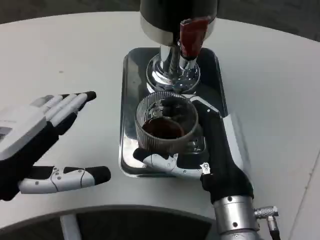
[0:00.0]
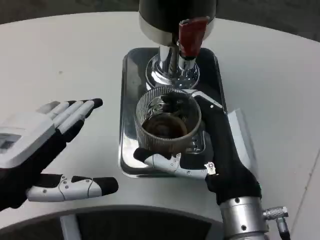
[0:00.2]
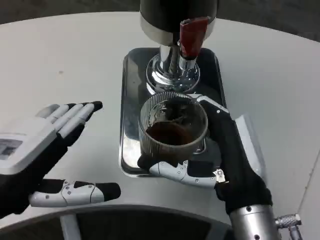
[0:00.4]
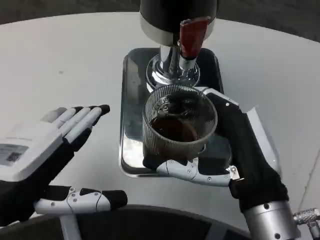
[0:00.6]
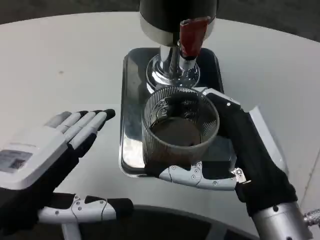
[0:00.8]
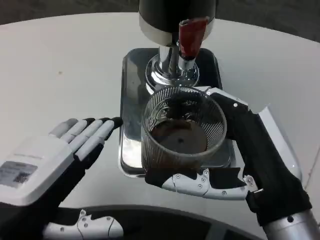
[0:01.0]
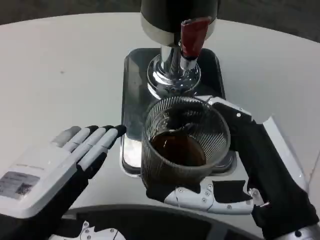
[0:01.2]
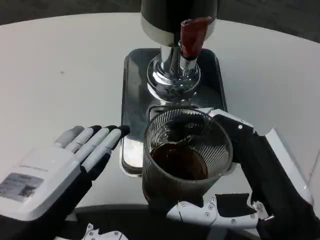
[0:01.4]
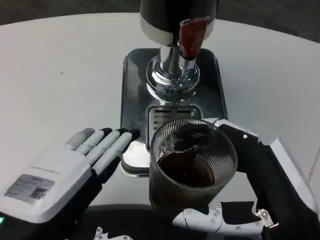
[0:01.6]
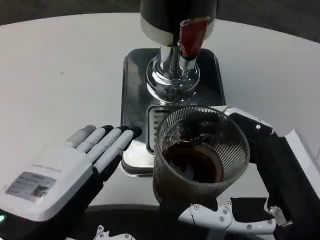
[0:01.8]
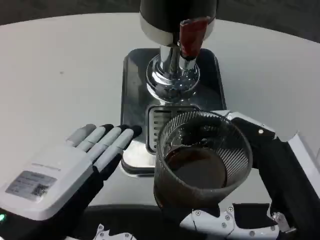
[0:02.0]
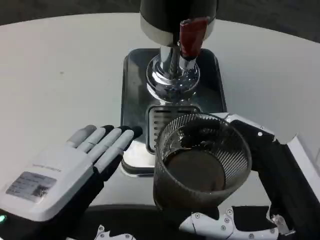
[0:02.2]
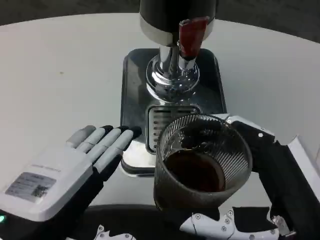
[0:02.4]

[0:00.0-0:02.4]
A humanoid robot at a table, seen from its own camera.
Task of the whole recording: Grasp the cup under the faucet to collect the drink, then remove the cup.
0:00.0 to 0:01.2: The left hand goes approximately 5 cm backward. Meanwhile the right hand shifts about 10 cm backward and to the right.

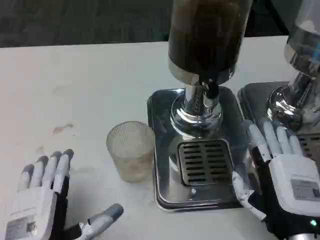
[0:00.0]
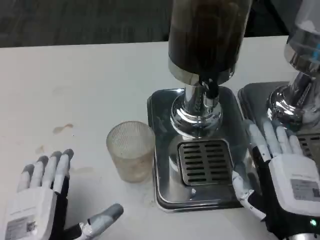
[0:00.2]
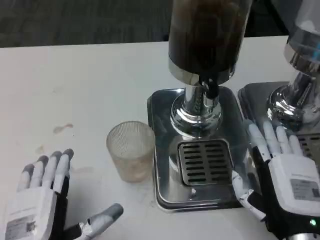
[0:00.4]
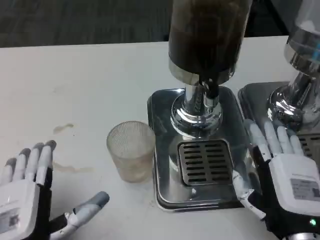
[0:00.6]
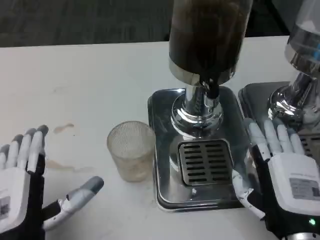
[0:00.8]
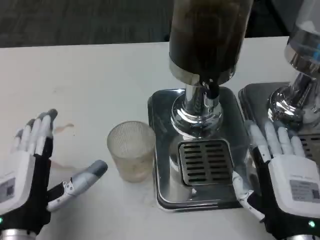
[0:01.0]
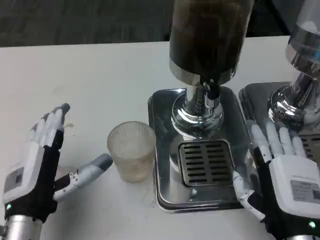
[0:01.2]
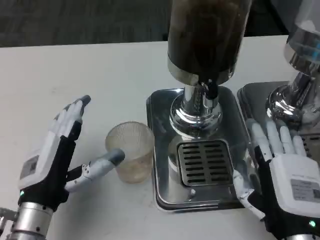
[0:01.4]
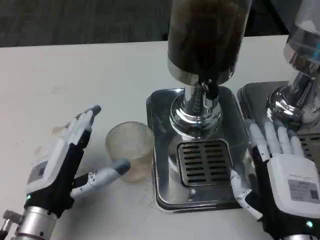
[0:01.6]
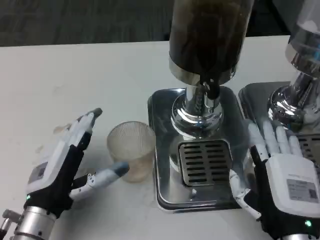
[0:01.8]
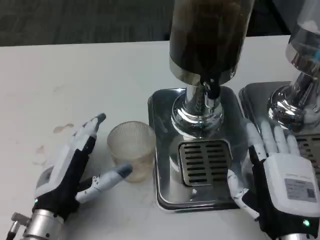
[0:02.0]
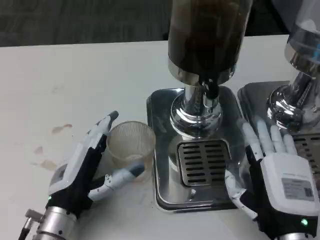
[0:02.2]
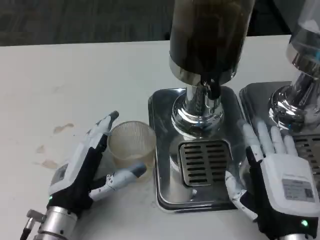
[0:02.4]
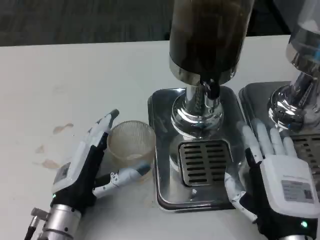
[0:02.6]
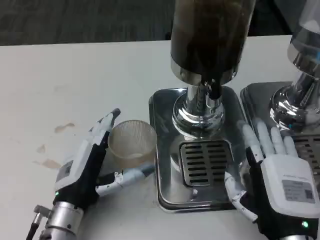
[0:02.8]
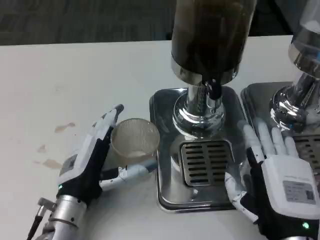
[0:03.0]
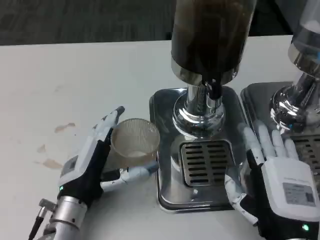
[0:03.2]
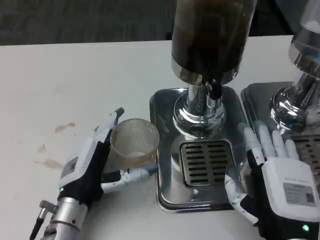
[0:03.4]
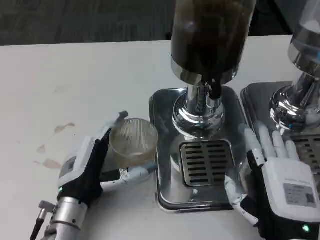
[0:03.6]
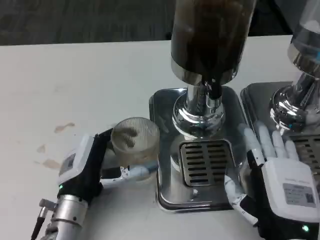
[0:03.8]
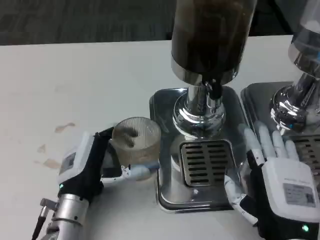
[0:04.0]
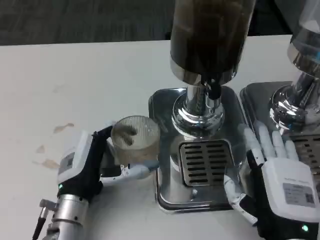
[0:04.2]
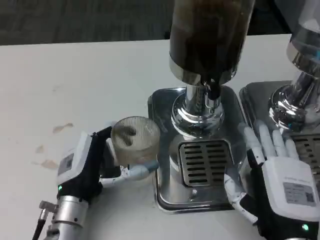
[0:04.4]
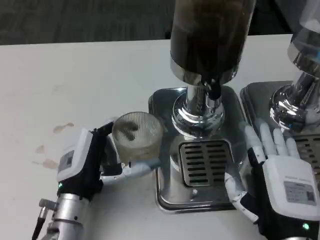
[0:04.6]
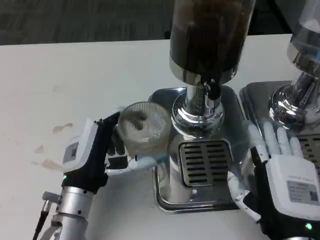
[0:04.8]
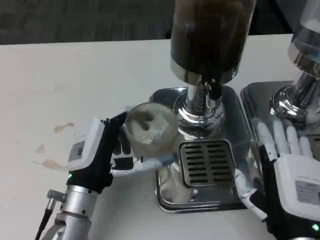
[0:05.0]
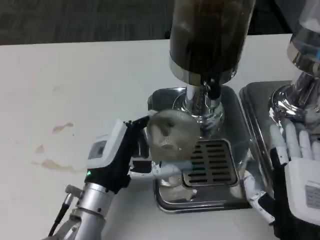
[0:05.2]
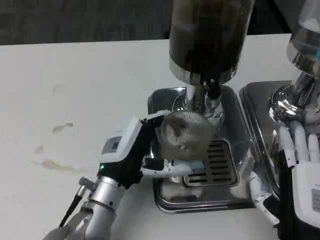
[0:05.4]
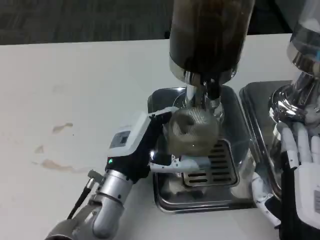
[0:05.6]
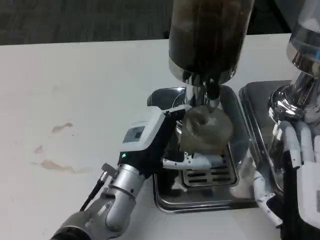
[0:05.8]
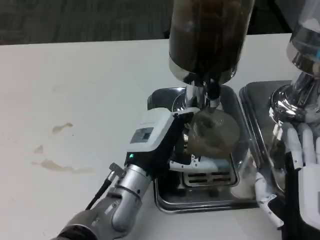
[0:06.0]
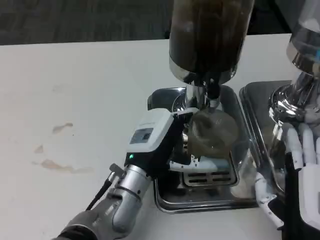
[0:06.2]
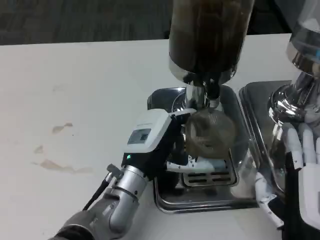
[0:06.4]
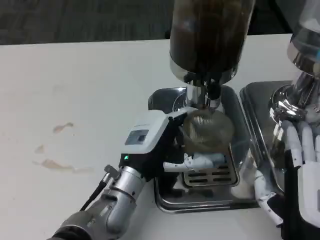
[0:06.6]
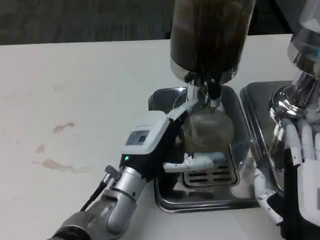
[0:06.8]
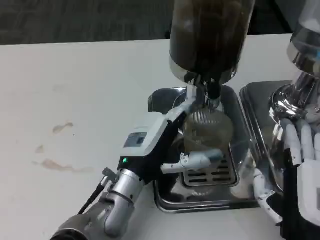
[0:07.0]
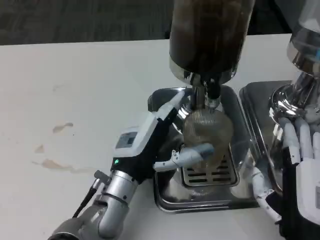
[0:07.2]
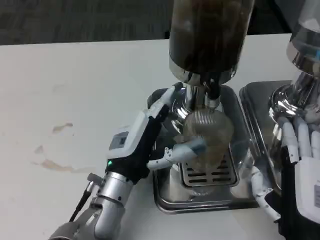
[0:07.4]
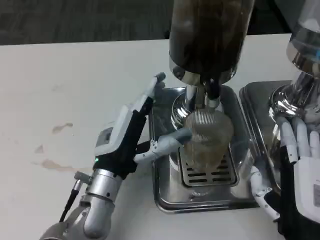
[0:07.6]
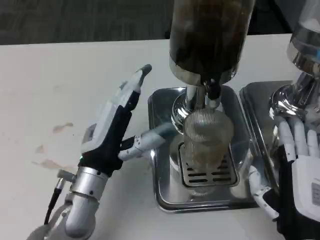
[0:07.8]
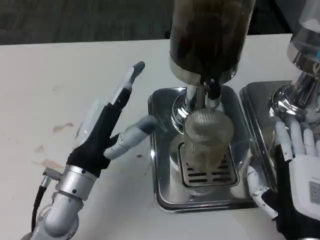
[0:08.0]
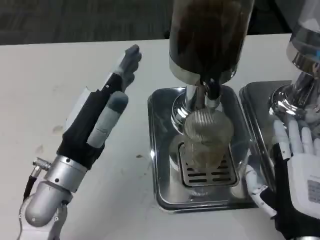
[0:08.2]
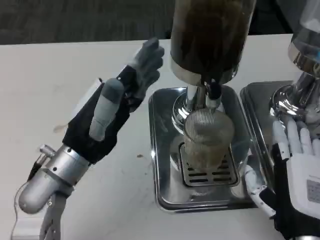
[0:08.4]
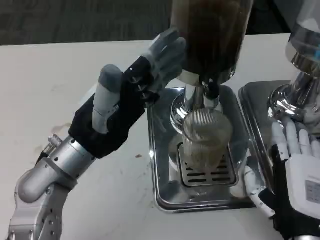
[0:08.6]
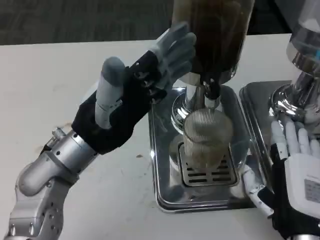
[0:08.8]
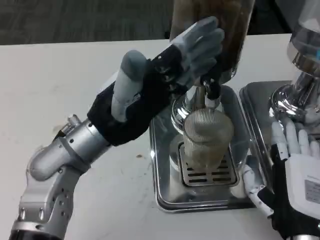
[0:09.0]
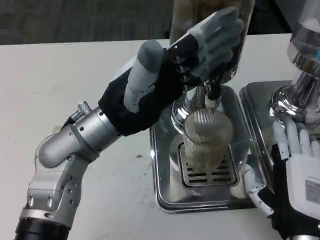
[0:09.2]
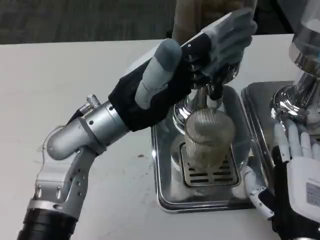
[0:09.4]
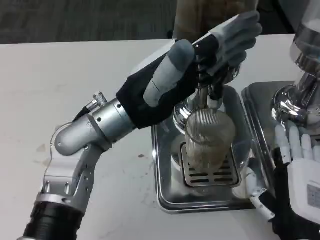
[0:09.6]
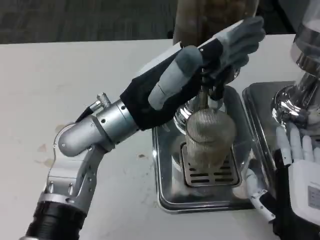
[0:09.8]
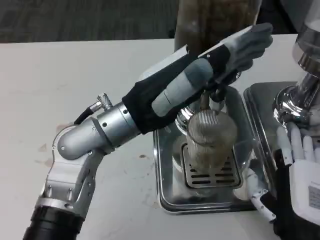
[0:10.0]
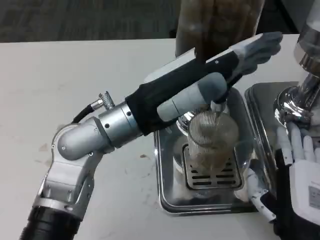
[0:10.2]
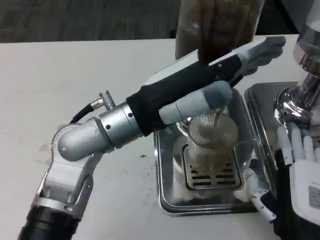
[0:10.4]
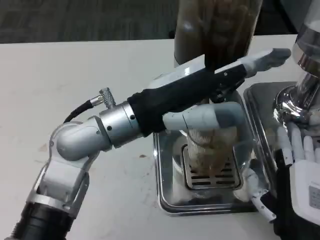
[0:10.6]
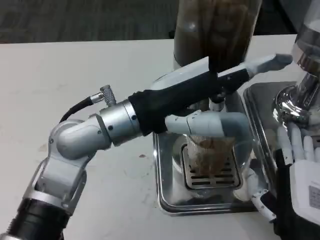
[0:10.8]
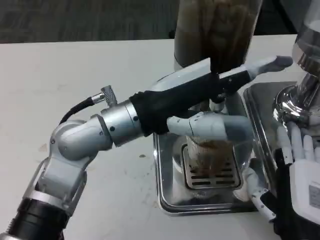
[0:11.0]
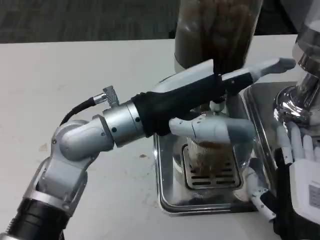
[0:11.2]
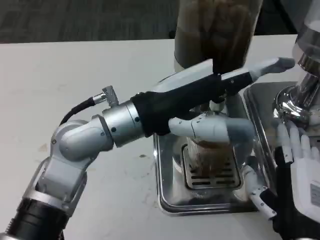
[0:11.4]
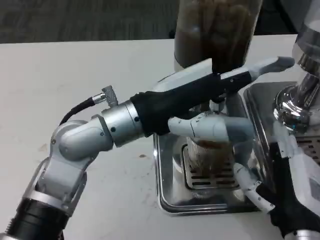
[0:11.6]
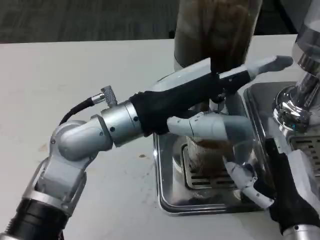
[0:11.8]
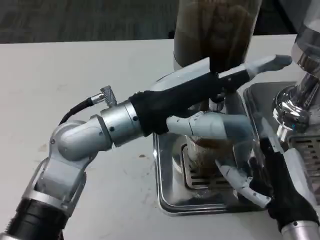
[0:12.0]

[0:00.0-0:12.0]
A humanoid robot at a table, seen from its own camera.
Task of the whole recording: Grasp the cup under the faucet to collect the drink, then remove the cup.
0:00.0 to 0:01.6: The left hand travels forward by approximately 10 cm.
0:01.6 to 0:03.0: The left hand shifts by some 5 cm.
0:03.0 to 0:04.4: There are only small adjustments of the hands.
0:04.4 to 0:06.0: The left hand travels to the right by about 10 cm.
0:07.6 to 0:09.0: The left hand moves upward, approximately 10 cm.

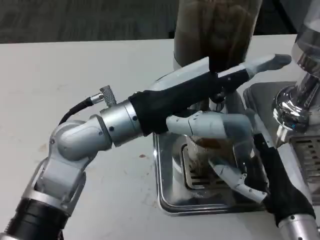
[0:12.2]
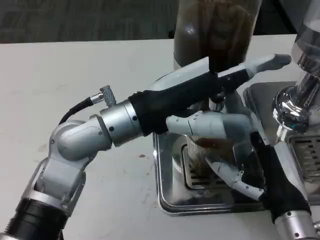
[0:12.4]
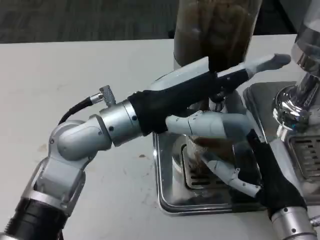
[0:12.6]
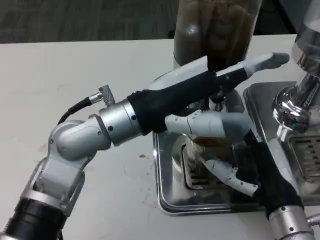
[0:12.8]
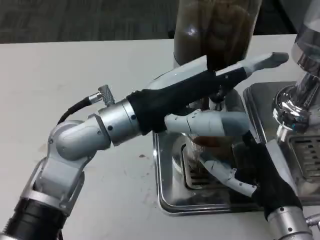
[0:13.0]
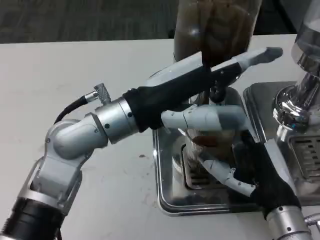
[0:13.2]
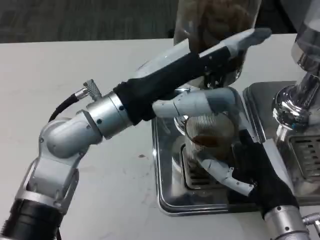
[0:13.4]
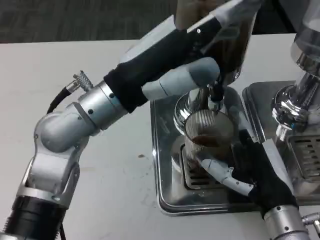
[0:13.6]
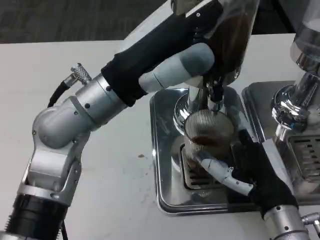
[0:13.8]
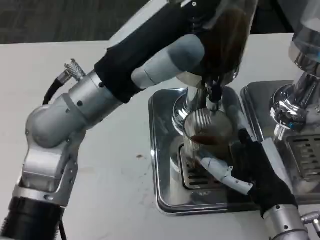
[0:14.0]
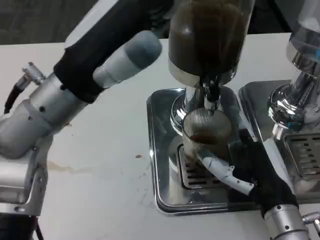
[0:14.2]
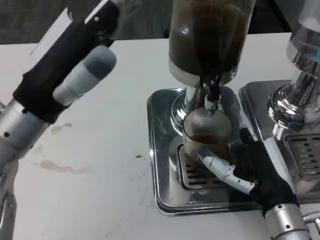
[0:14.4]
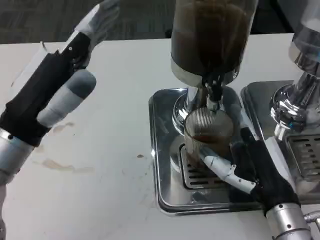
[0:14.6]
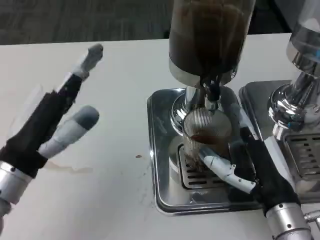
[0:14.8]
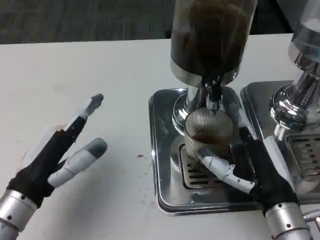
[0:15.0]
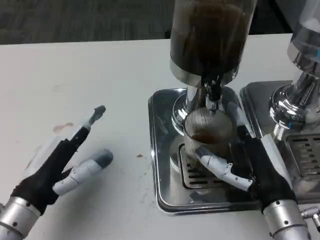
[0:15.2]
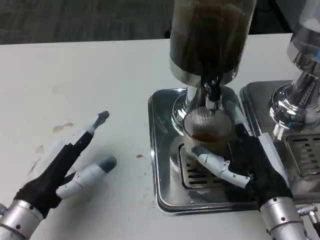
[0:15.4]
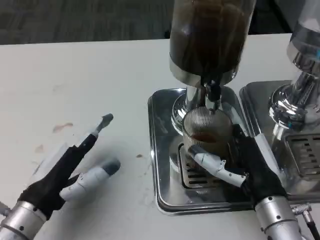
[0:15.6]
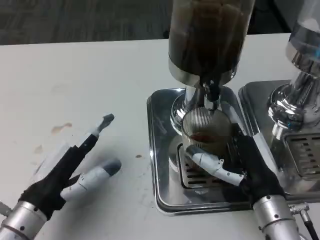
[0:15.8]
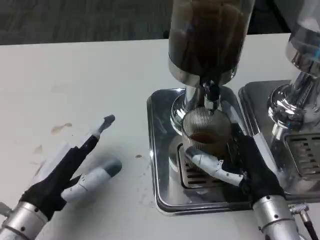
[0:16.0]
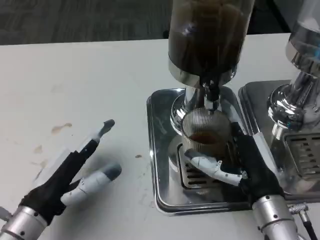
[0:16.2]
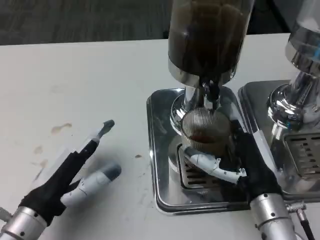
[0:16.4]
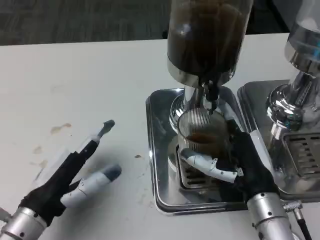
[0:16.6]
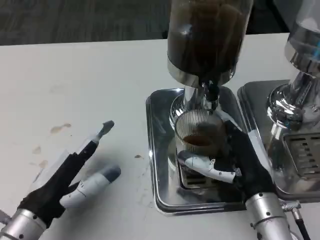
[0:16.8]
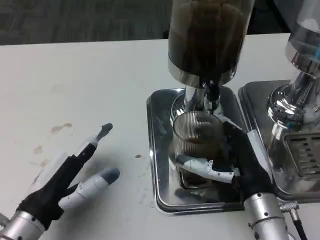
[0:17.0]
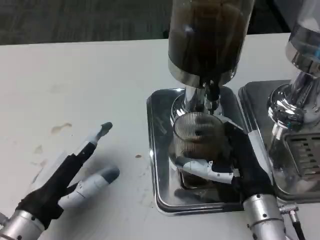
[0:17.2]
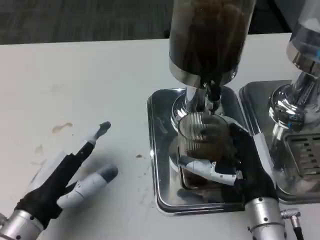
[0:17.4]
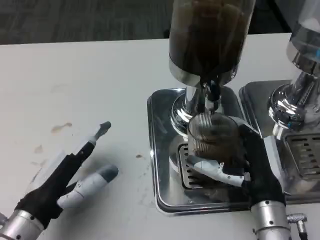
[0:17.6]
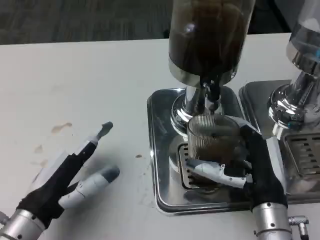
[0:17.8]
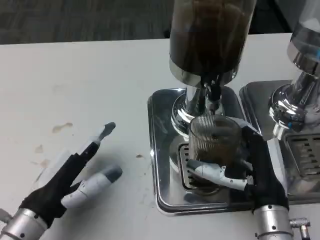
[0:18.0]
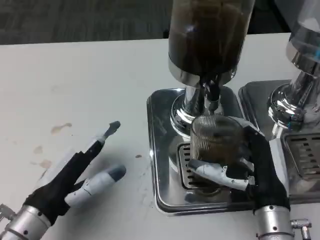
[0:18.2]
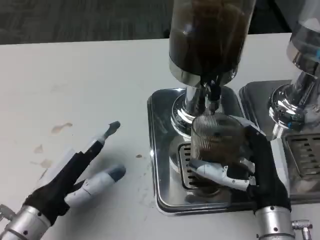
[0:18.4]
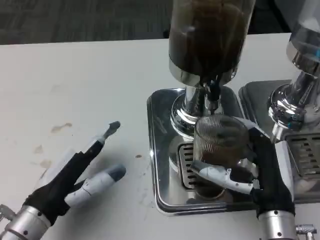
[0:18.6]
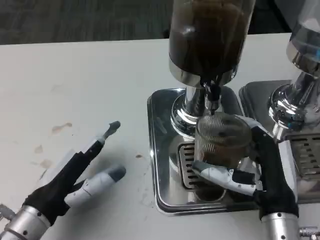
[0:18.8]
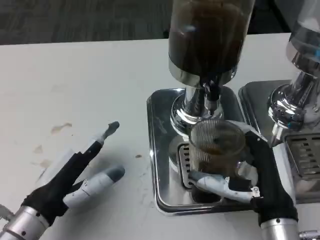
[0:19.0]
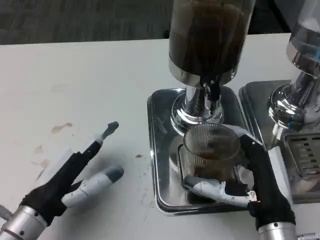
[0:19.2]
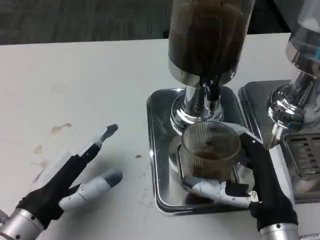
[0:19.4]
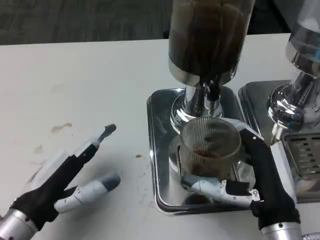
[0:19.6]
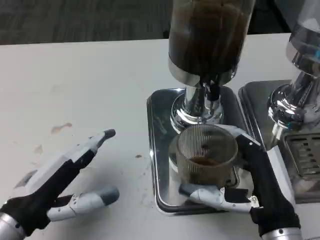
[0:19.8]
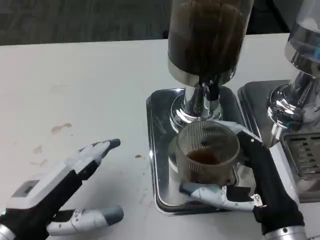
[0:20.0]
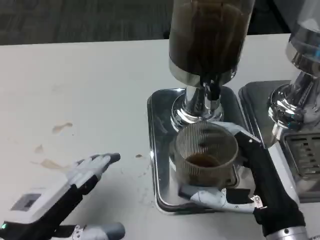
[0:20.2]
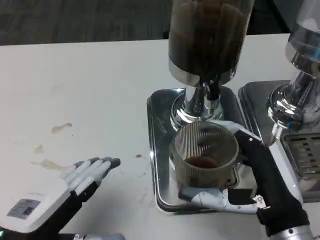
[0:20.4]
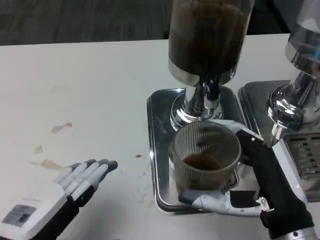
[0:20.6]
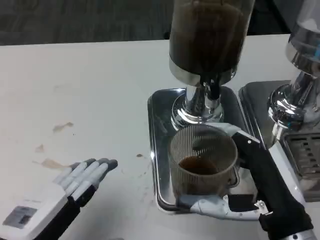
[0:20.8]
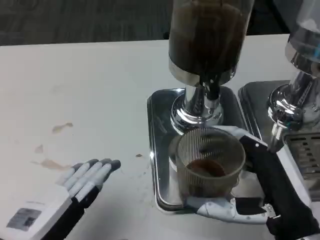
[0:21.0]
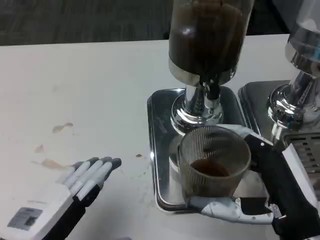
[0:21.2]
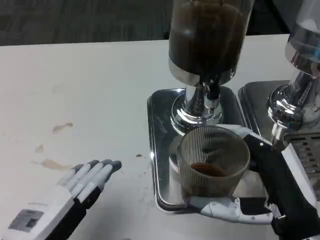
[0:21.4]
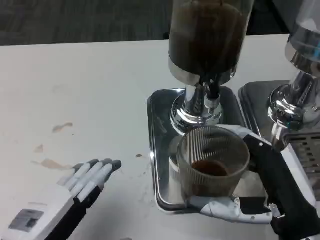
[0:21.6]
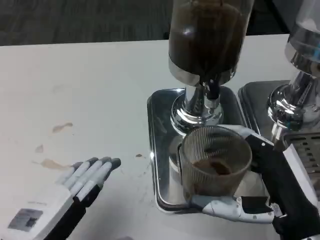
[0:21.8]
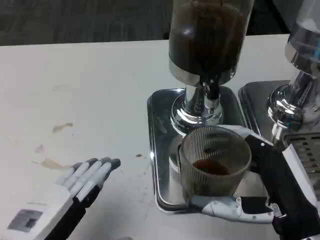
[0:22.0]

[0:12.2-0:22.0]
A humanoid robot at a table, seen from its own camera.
Task of the whole recording: Grasp the cup under the faucet to collect the drink, then remove the cup.
0:13.6 to 0:15.0: The left hand moves downward, to the left and backward, roughly 20 cm.
0:16.4 to 0:19.2: The hands stay close to where they were, moving slightly.
0:19.2 to 0:20.6: The left hand heads backward, covering roughly 5 cm, while the right hand ends up approximately 5 cm from where it was.
0:20.6 to 0:22.0: There are only small adjustments of the hands.
